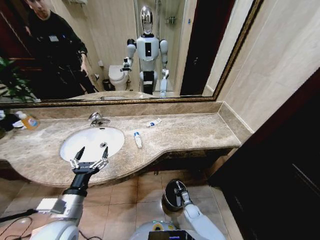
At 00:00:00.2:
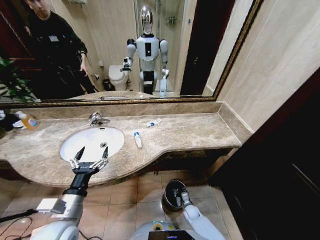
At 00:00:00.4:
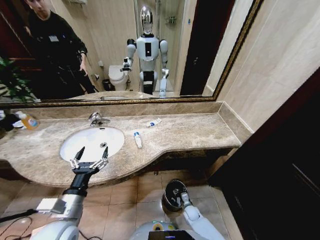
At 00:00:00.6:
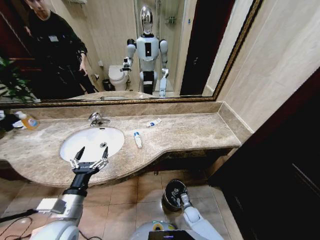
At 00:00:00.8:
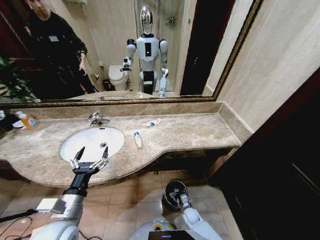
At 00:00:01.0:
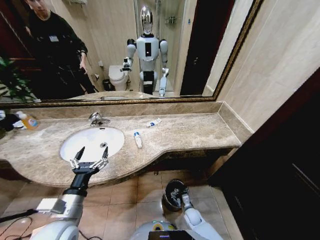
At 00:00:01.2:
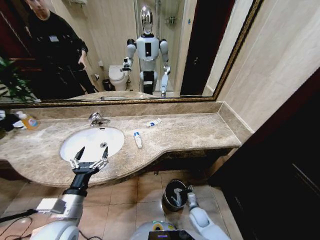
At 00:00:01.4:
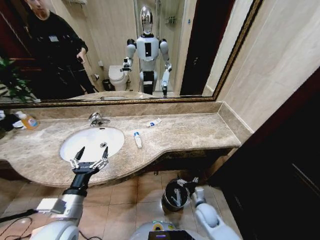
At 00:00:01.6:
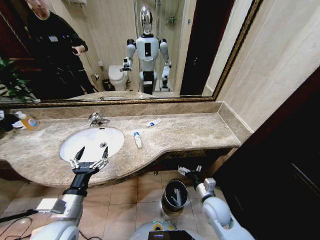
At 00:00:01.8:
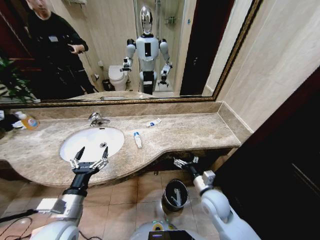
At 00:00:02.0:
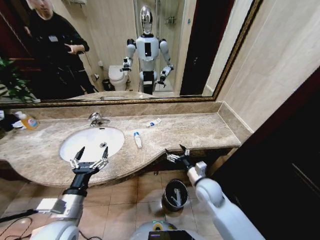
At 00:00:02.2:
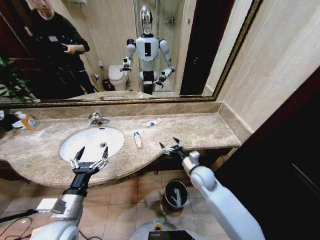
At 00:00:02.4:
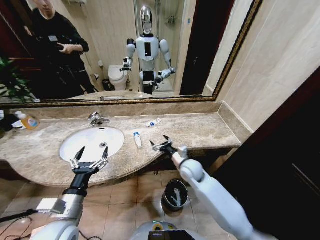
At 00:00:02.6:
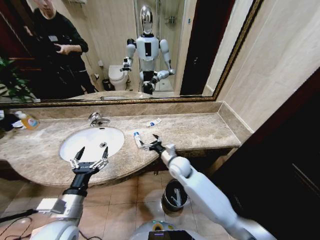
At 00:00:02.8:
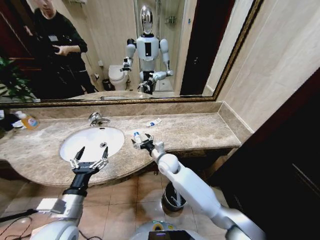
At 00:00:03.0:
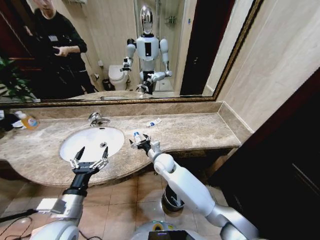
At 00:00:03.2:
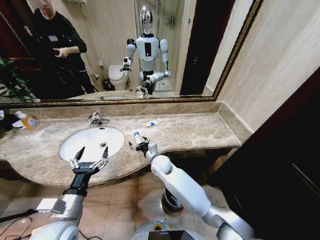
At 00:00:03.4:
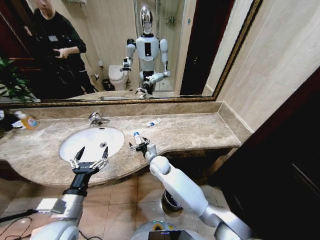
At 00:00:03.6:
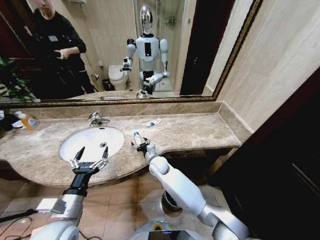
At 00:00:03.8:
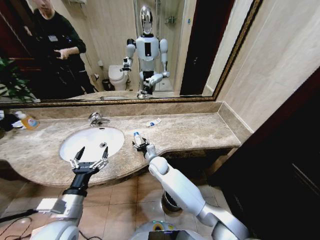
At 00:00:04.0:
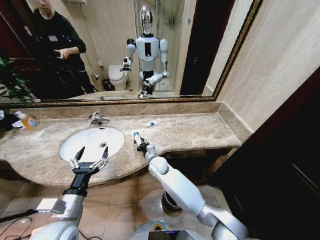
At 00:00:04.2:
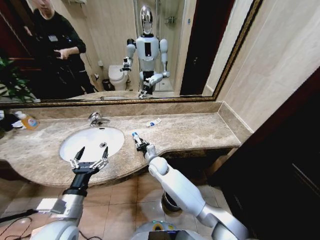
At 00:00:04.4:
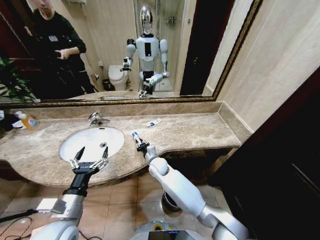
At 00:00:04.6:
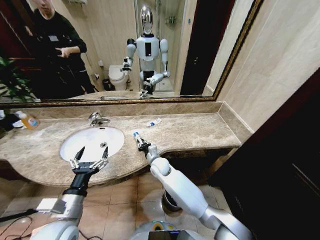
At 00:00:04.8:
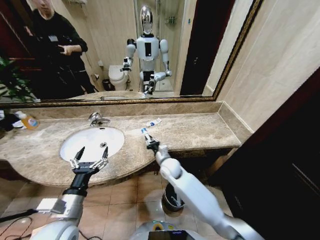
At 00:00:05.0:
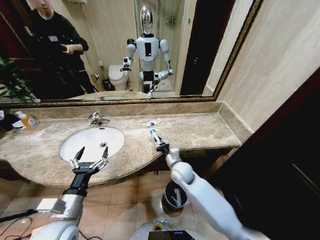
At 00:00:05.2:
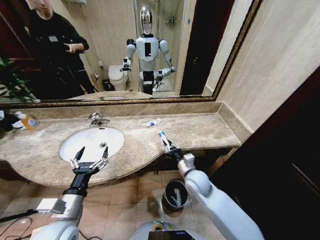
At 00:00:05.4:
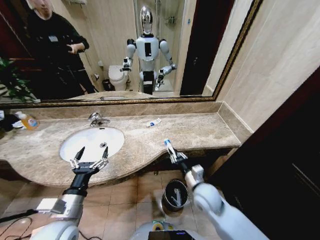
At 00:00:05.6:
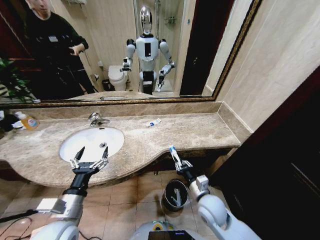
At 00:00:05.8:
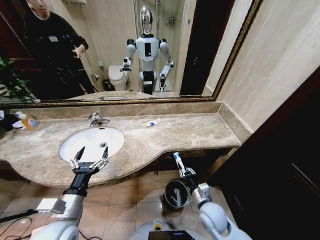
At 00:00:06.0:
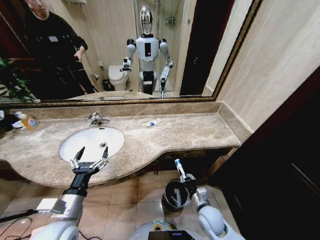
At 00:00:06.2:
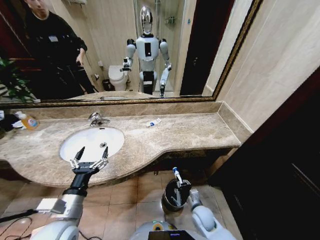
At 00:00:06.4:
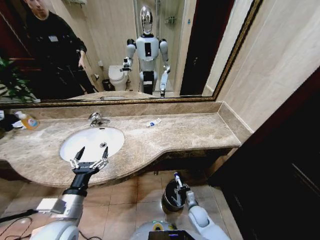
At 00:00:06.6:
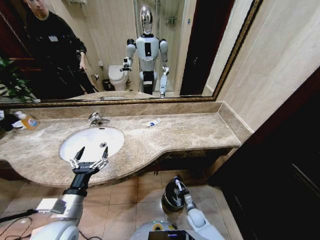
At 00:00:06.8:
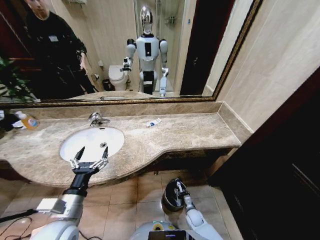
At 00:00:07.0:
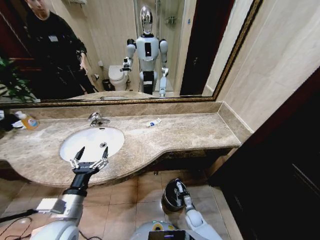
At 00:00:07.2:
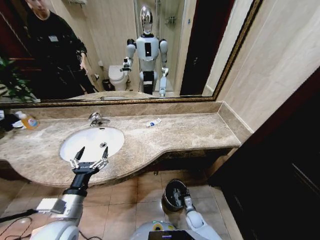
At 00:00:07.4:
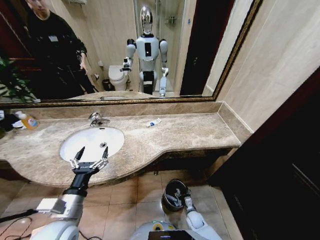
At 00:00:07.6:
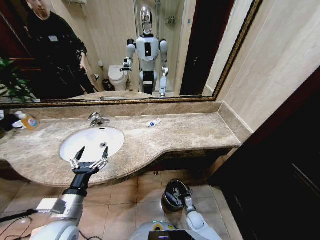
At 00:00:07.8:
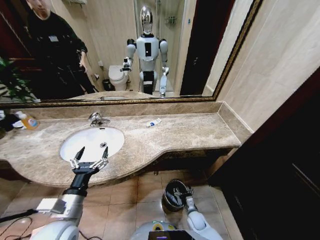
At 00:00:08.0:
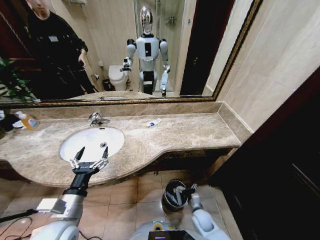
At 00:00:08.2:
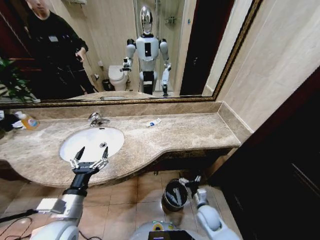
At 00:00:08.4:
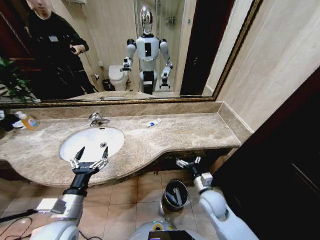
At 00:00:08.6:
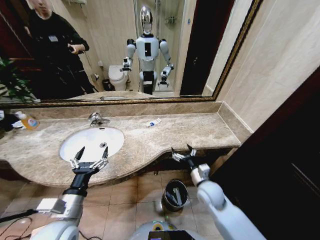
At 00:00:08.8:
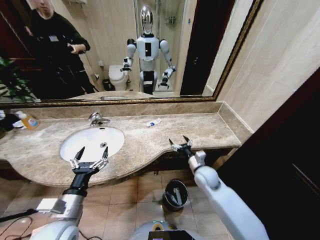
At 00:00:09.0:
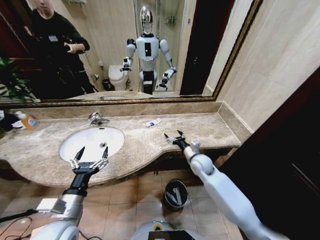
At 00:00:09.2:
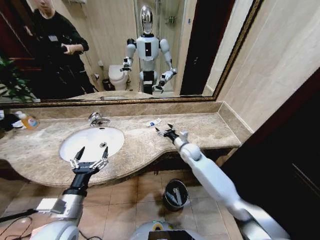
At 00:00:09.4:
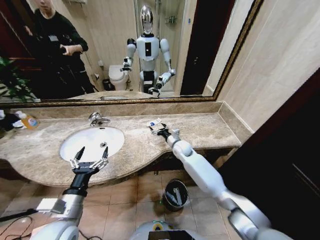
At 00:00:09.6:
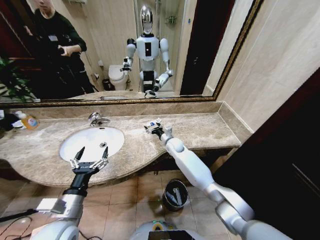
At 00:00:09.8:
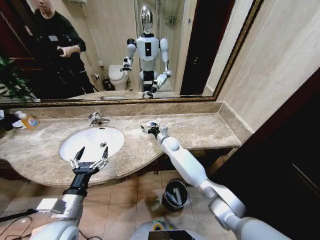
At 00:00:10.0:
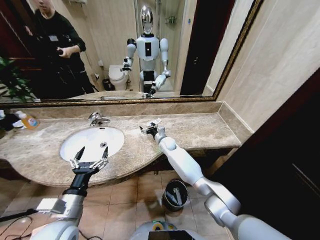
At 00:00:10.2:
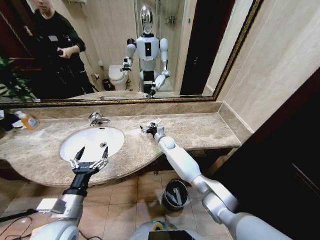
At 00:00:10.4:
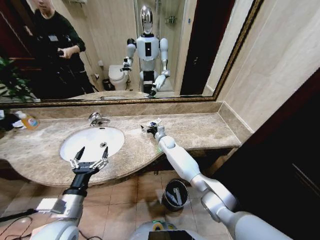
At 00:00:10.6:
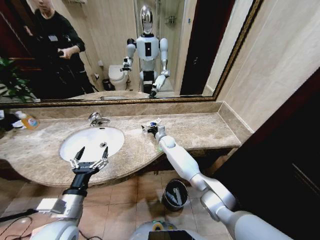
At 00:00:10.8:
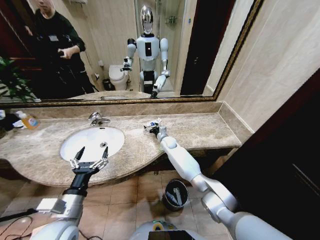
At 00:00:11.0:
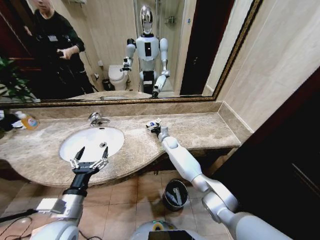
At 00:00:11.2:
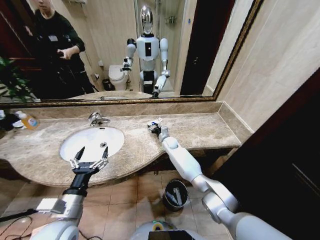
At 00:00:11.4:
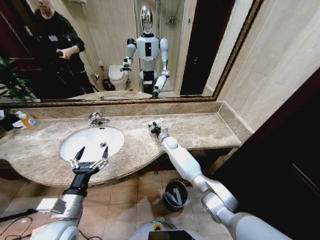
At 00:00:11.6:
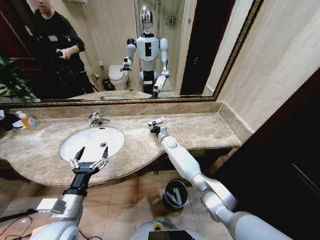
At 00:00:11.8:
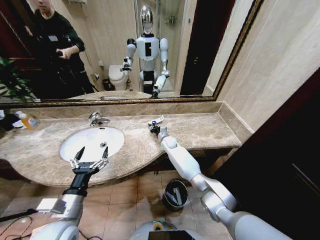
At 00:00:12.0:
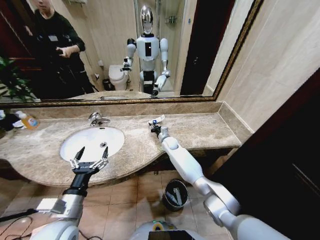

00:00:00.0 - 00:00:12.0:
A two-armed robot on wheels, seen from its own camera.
Task of the whole recording: Pick up the trash from the sink and place it in the trash bin.
00:00:00.0 - 00:00:01.6: The right gripper travels upward by about 30 cm, and opens up.
00:00:01.6 - 00:00:03.0: The right gripper goes some 25 cm to the left and forward.
00:00:03.0 - 00:00:04.4: The right gripper changes place by roughly 5 cm, and closes.
00:00:04.4 - 00:00:06.0: The right gripper is displaced to the right and backward by some 30 cm.
00:00:06.0 - 00:00:07.6: The right gripper is displaced downward by approximately 20 cm, and opens its fingers.
00:00:07.6 - 00:00:09.0: The right gripper goes about 35 cm upward and forward.
00:00:09.0 - 00:00:10.4: The right gripper is displaced forward and to the left by roughly 20 cm.
00:00:10.4 - 00:00:12.0: The right gripper closes its fingers.

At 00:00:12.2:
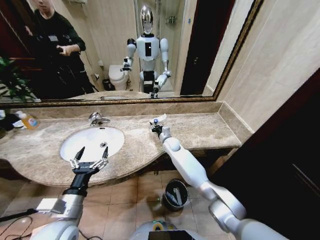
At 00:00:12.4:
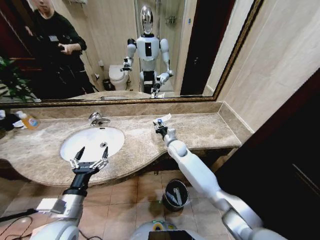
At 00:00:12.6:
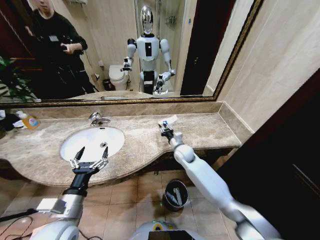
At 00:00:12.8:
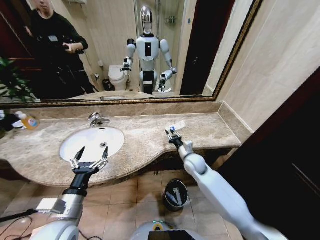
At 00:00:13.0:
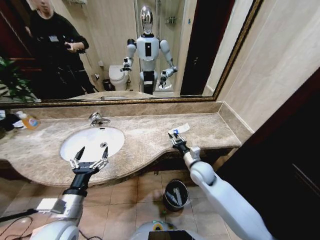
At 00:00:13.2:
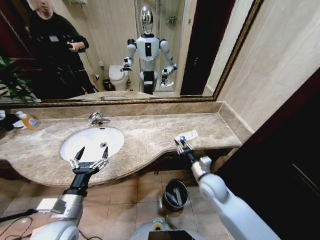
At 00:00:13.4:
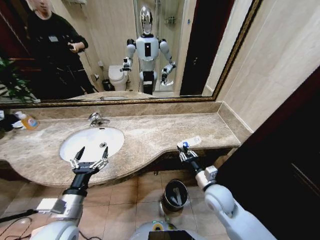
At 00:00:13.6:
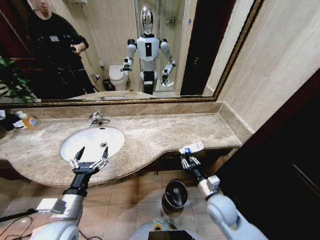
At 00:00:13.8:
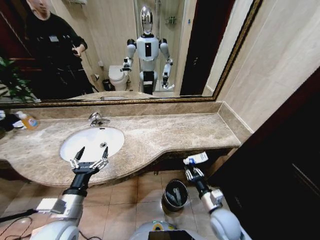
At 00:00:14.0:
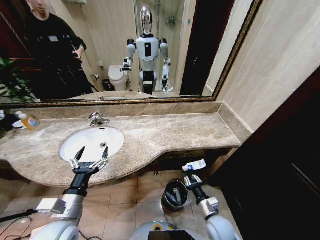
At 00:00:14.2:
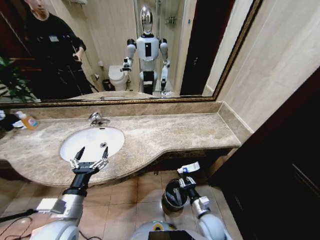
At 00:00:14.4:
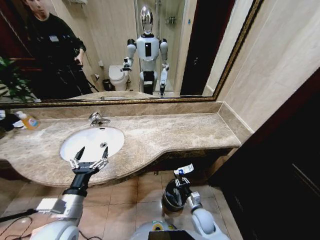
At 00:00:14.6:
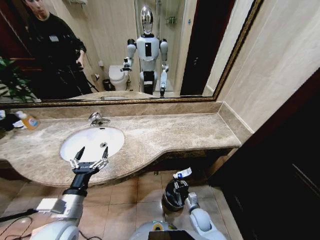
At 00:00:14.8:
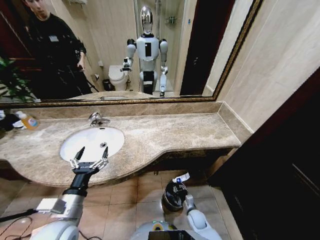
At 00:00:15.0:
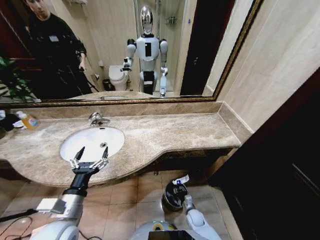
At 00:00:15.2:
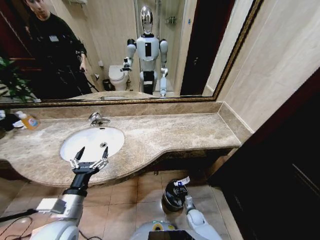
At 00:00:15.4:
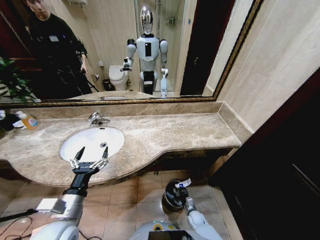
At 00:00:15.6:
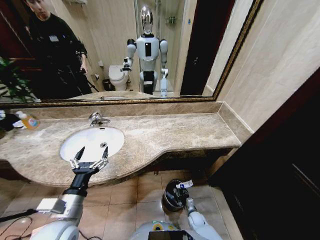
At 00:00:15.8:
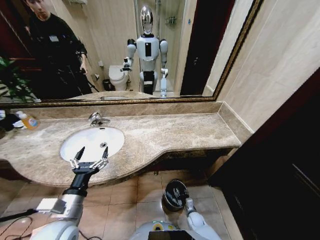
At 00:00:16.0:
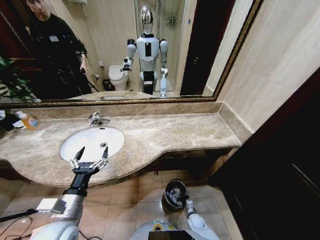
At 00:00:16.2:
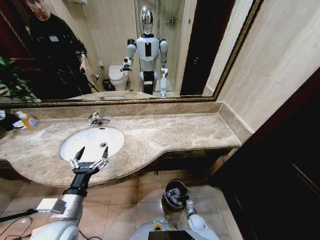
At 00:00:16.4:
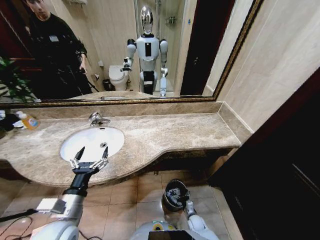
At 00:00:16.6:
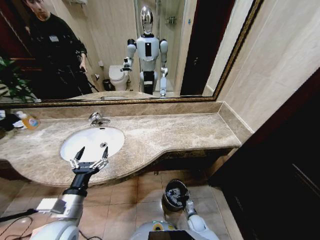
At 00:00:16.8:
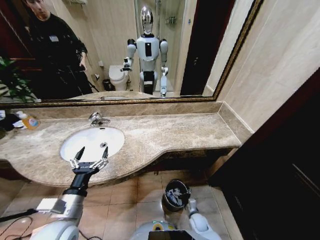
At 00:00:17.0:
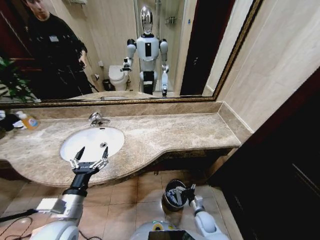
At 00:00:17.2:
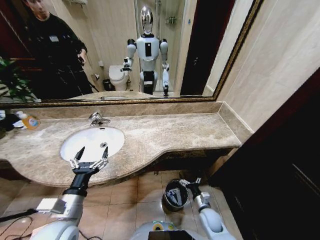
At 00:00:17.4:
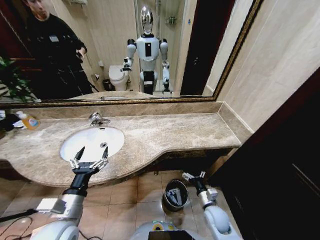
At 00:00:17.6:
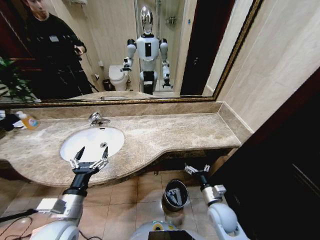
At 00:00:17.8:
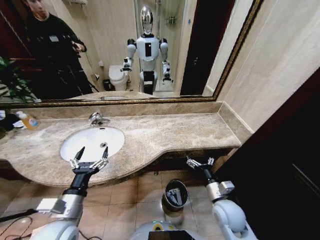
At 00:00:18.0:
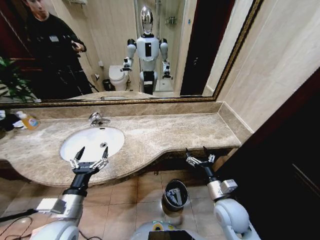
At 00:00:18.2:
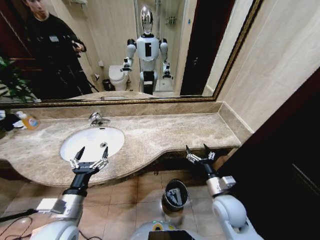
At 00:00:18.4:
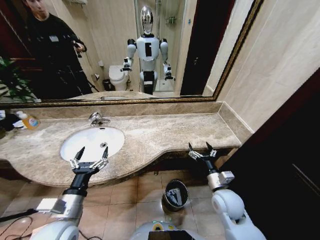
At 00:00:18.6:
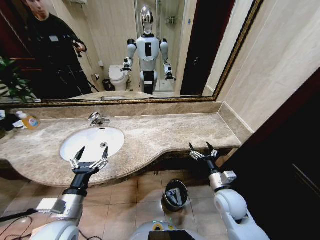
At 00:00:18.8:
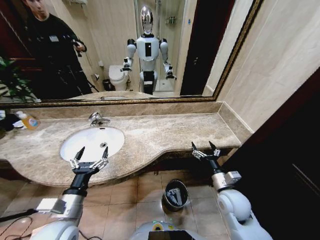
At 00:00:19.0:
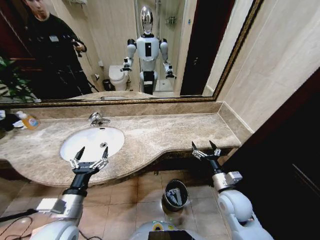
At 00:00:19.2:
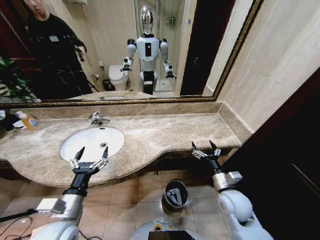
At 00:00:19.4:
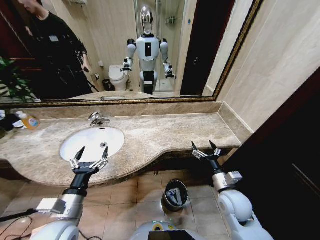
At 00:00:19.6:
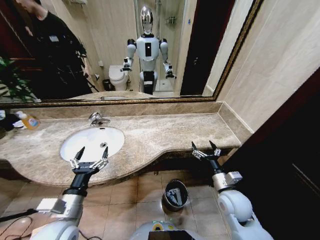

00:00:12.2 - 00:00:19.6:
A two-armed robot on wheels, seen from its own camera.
Task of the whole recording: Pick up the trash from the sink and place it in the trash bin.
00:00:12.2 - 00:00:13.6: The right gripper moves backward and to the right, about 35 cm.
00:00:13.6 - 00:00:15.2: The right gripper is displaced downward by approximately 30 cm.
00:00:15.2 - 00:00:16.6: The right gripper opens.
00:00:16.6 - 00:00:18.2: The right gripper goes approximately 35 cm upward.
00:00:18.2 - 00:00:19.6: The grippers stay close to where they were, moving slightly.
